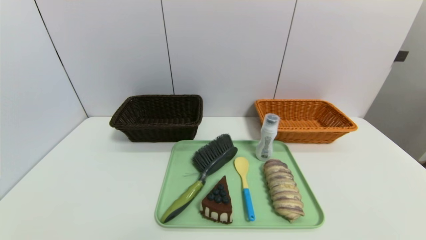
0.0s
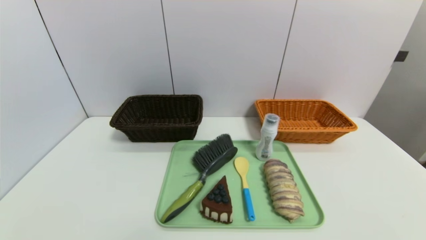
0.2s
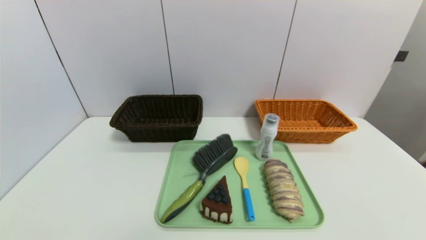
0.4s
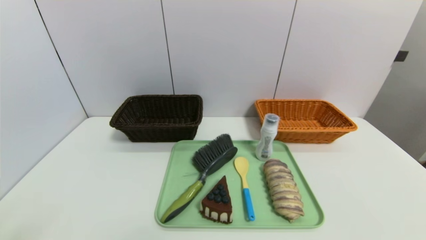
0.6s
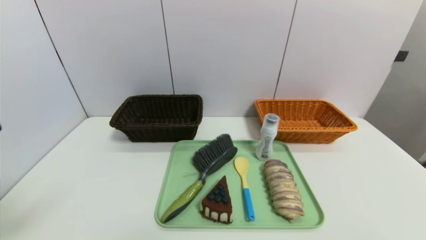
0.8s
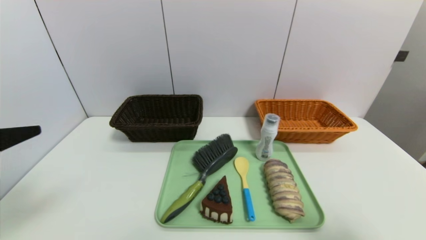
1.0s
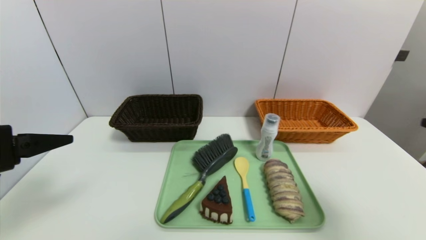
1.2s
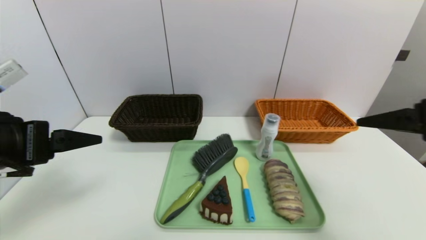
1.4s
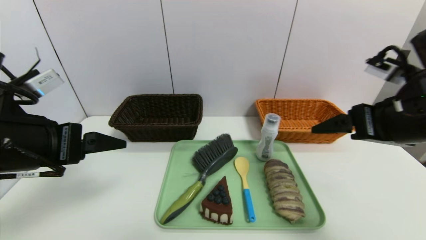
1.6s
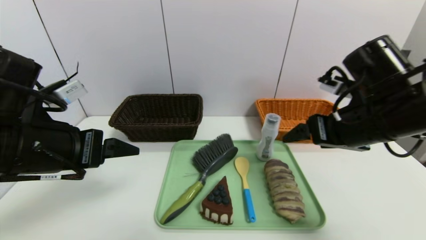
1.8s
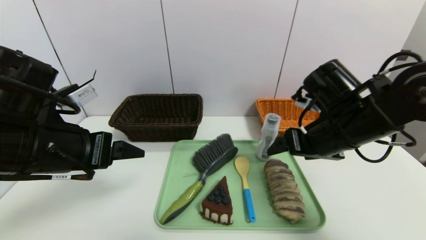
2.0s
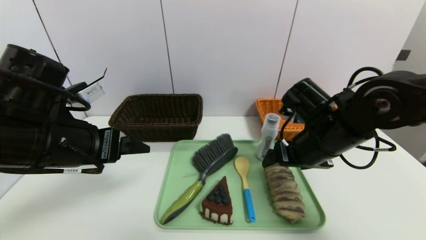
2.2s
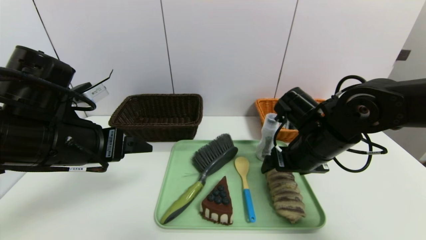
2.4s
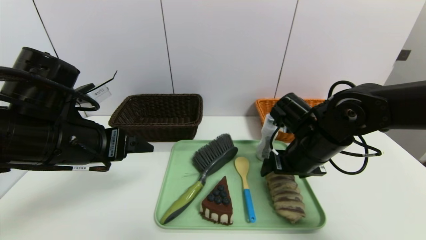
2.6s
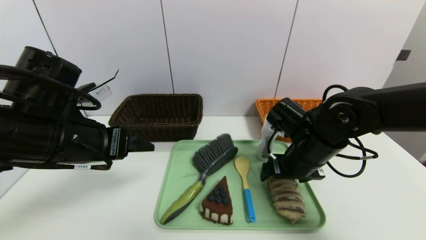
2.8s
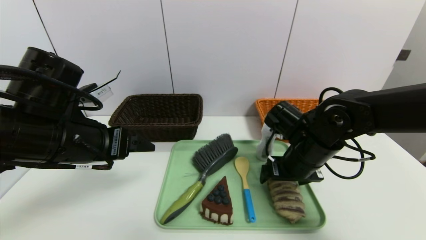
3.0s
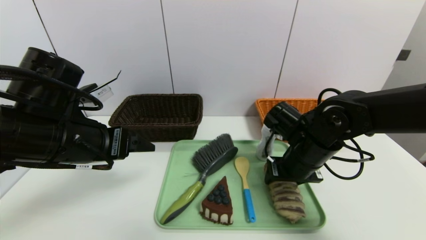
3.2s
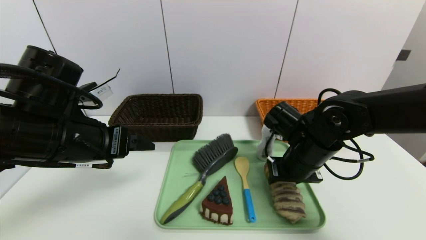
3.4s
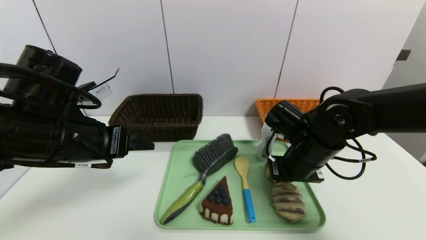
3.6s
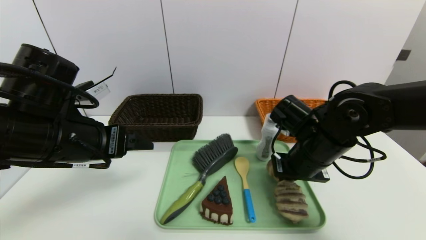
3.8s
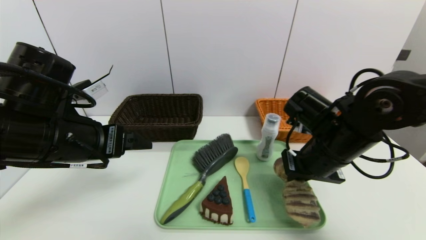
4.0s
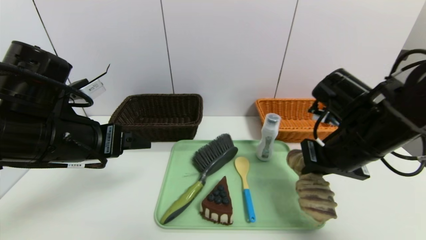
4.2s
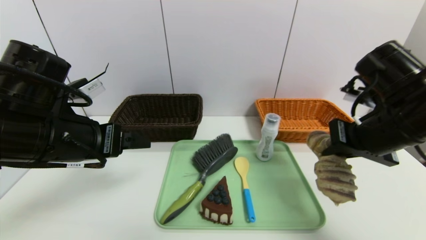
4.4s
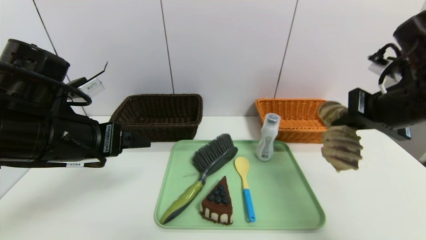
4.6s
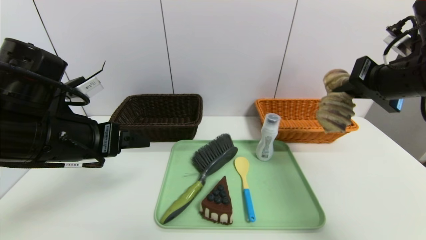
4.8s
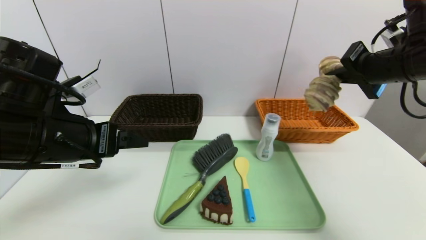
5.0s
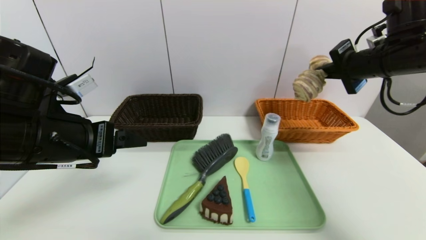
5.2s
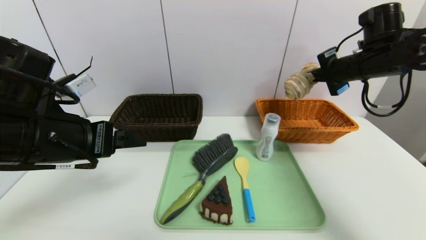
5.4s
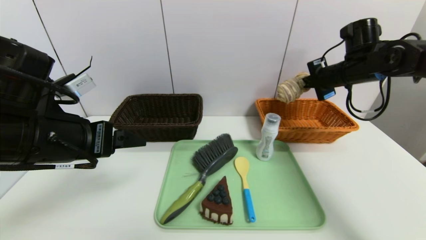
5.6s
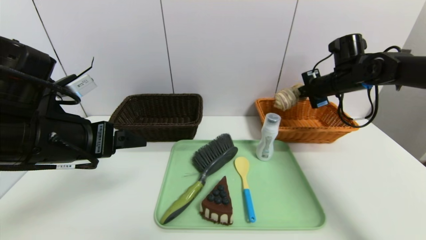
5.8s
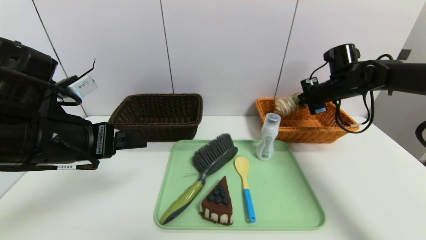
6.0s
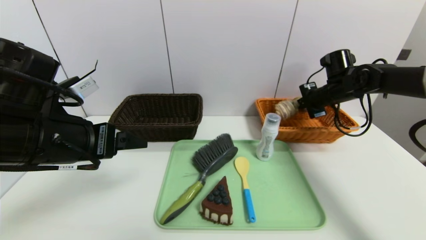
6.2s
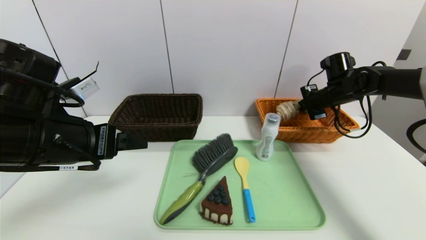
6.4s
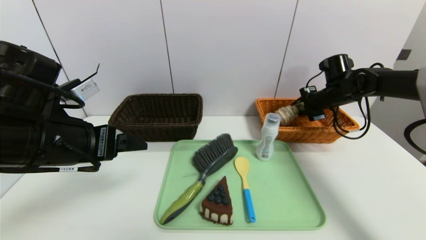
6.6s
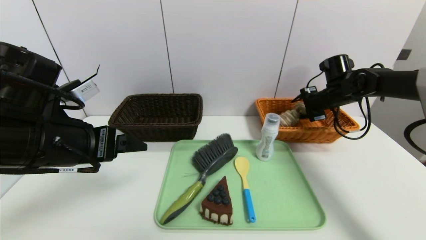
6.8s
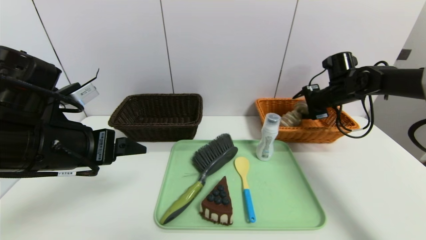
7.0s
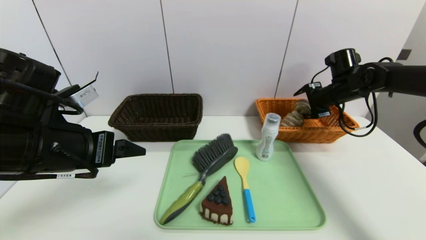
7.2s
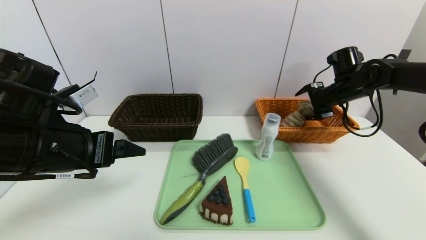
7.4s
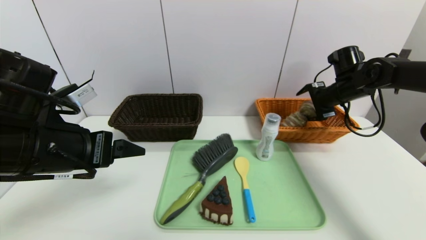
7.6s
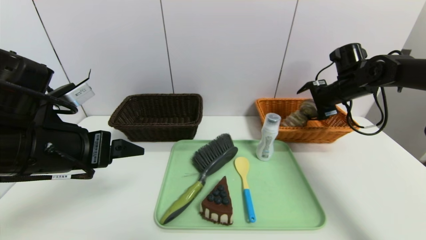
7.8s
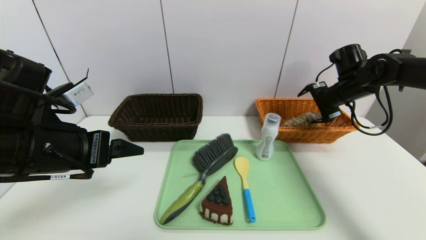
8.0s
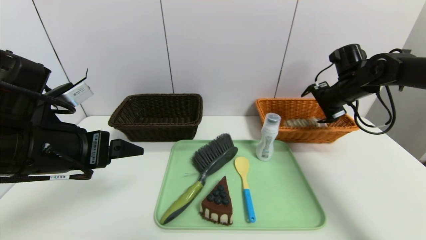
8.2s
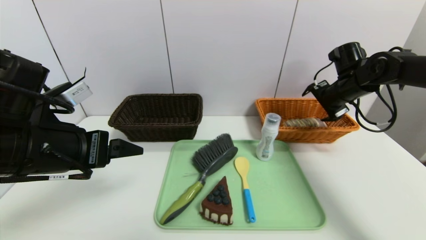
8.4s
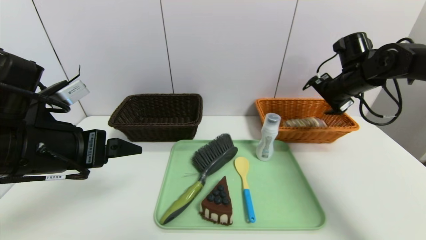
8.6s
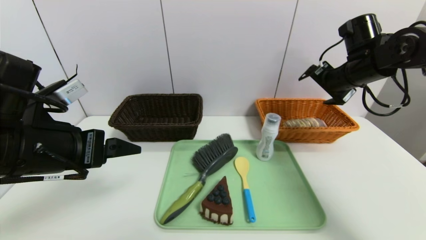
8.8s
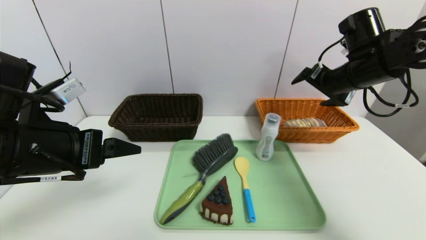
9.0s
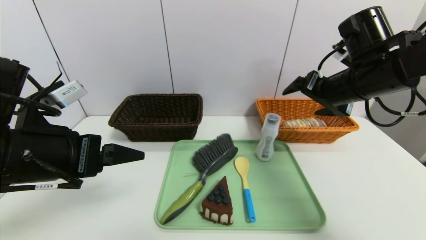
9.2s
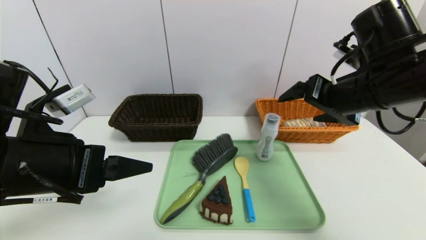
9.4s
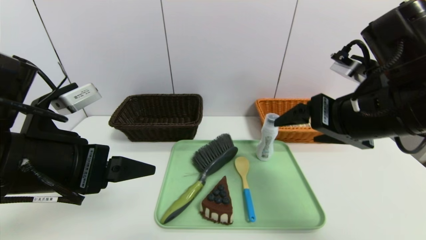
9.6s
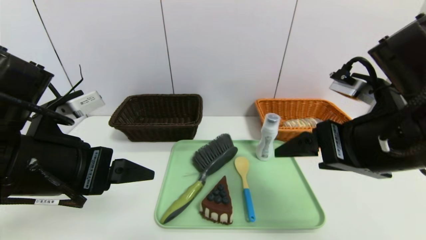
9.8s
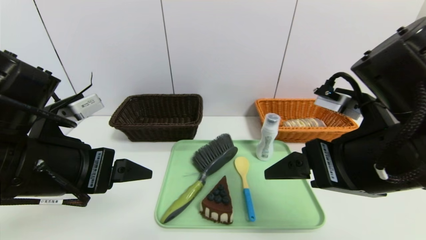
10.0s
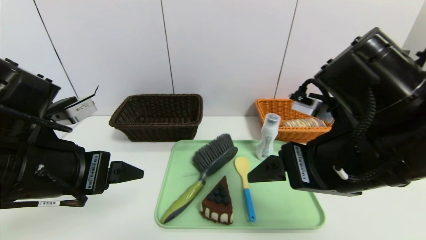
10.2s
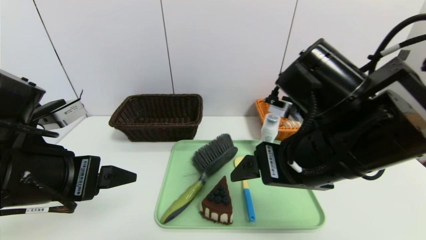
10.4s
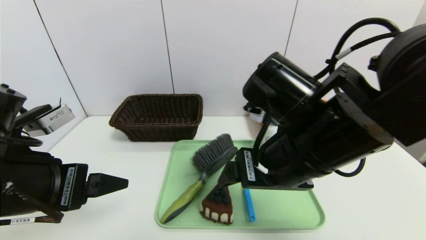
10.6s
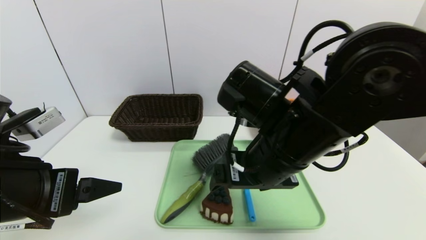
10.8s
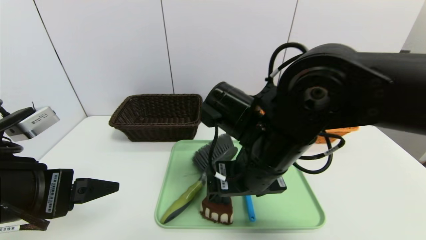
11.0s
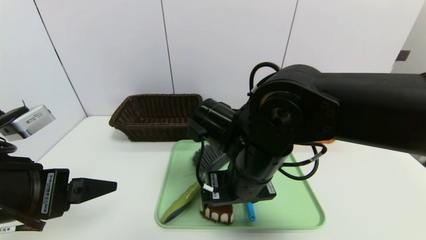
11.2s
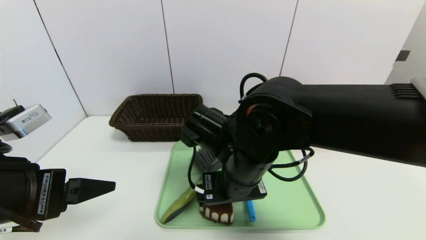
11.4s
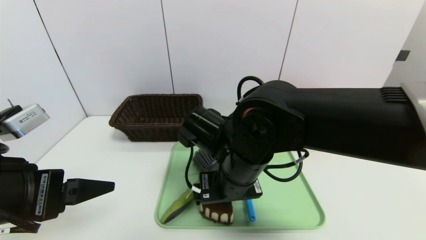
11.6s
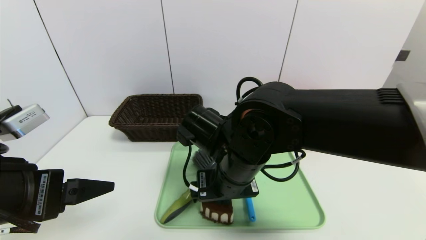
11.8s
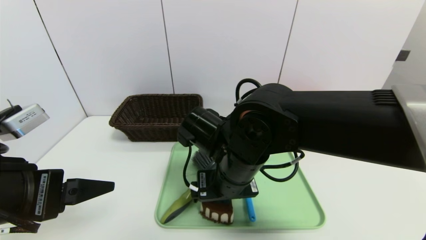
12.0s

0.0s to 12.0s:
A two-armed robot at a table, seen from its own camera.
Task of the whole recording: place the food in the right basket with the right gripper, and place the non food items in the left basket with the left gripper.
Step, 0.0s to 8.4s: Grasp the long bread and put it in the right basket.
0.0s to 1.6s: The grippers both shift forward and upward by approximately 30 cm.
1.6s to 3.0s: The left gripper changes place by about 5 cm, while the right gripper shifts about 15 cm downward, to the left and forward.
3.0s to 4.4s: The right gripper heads upward, to the right and backward, covering approximately 15 cm, and closes.
4.4s to 6.0s: The right gripper goes roughly 20 cm forward.
6.0s to 7.6s: The right gripper opens.
7.6s to 9.0s: The right gripper heads backward, upward and to the left, covering about 15 cm.
9.0s to 10.4s: The right gripper shifts about 20 cm backward and to the left.
10.4s to 12.0s: The right gripper heads to the left, downward and forward, covering some 15 cm.

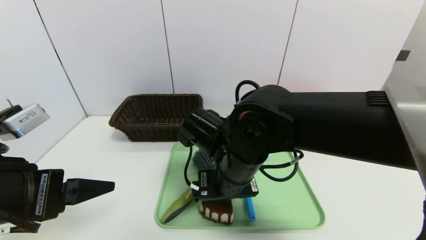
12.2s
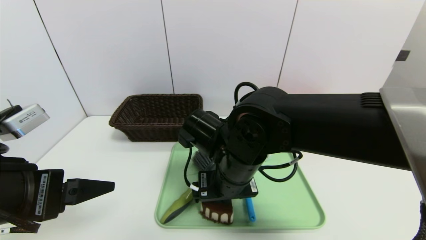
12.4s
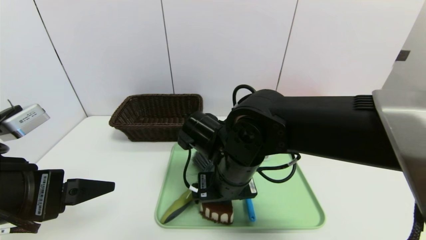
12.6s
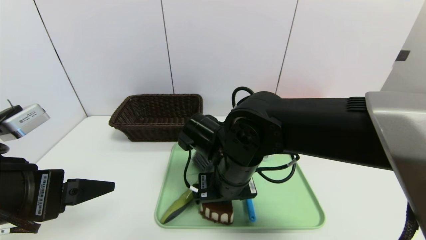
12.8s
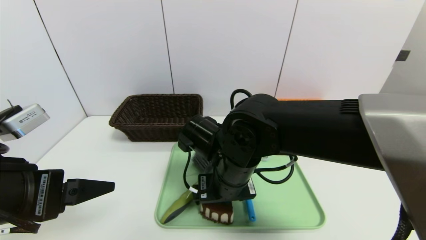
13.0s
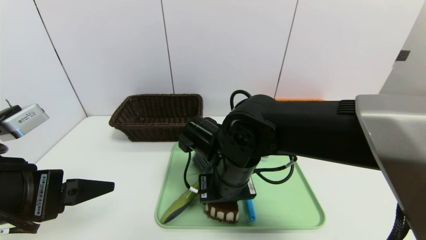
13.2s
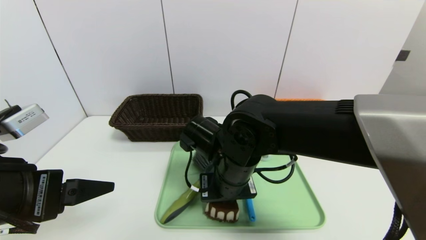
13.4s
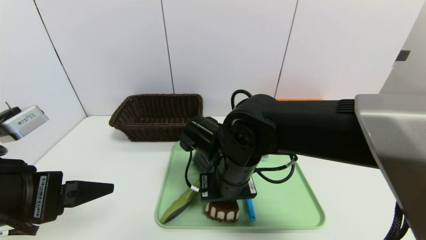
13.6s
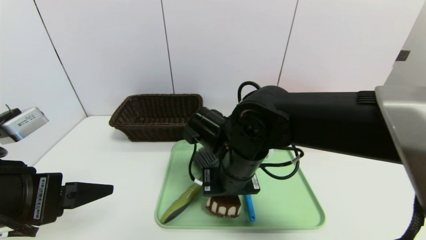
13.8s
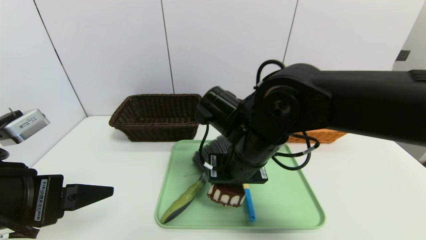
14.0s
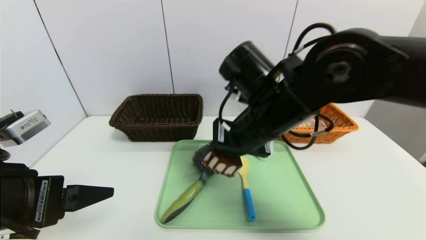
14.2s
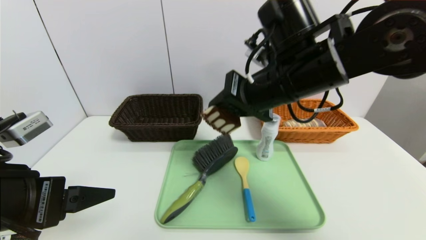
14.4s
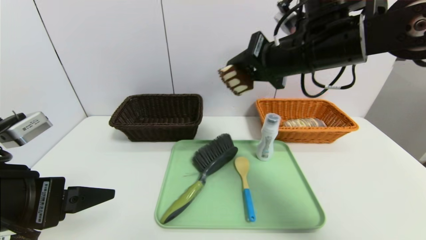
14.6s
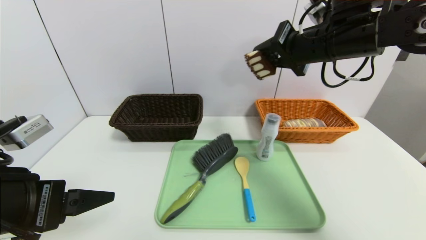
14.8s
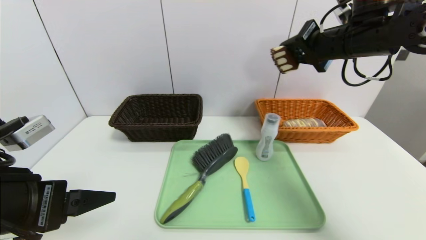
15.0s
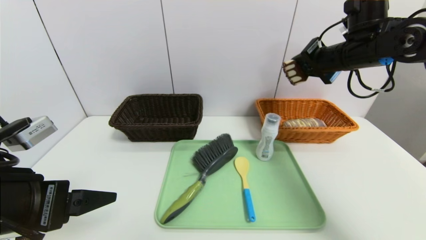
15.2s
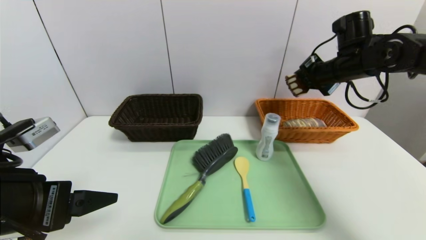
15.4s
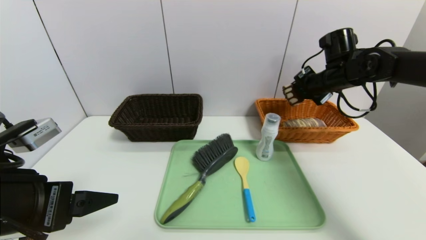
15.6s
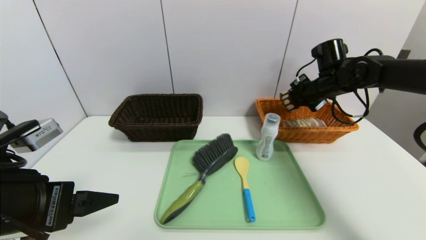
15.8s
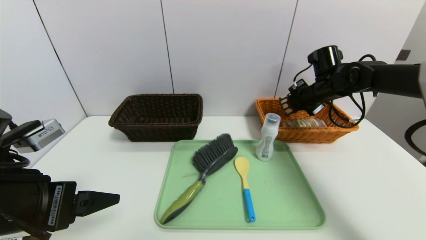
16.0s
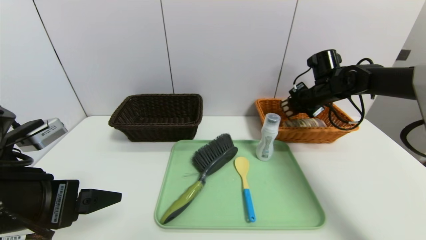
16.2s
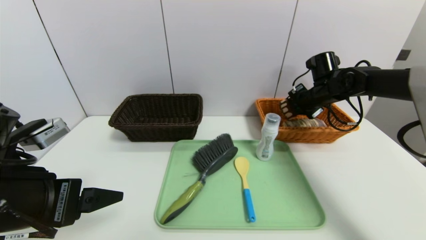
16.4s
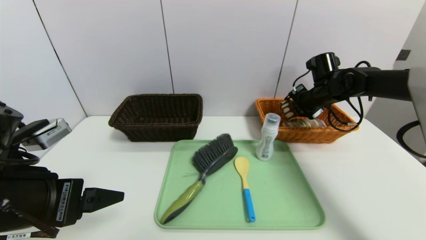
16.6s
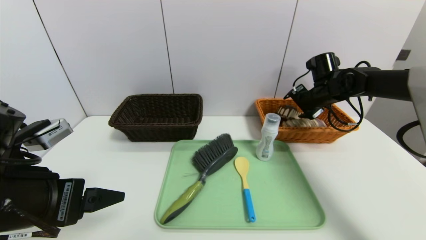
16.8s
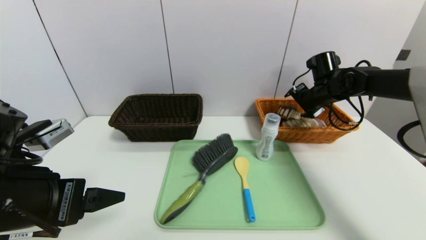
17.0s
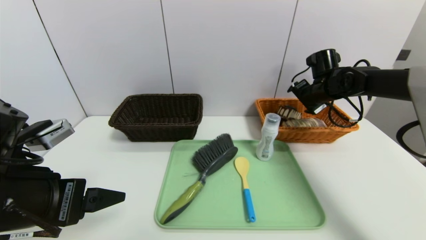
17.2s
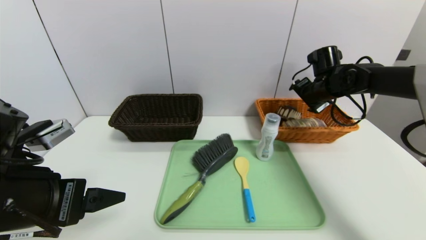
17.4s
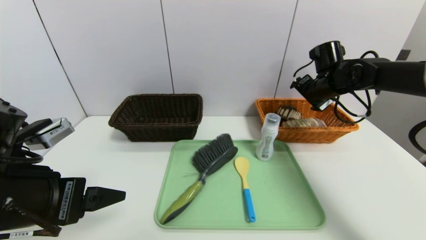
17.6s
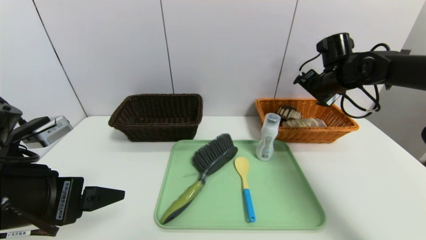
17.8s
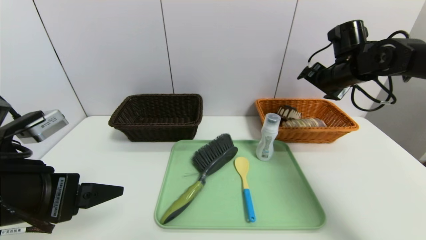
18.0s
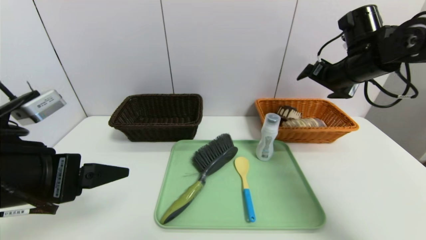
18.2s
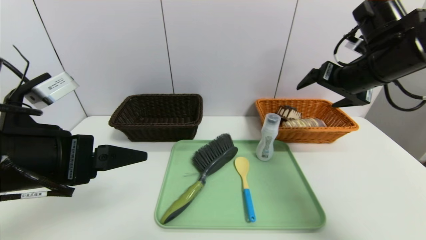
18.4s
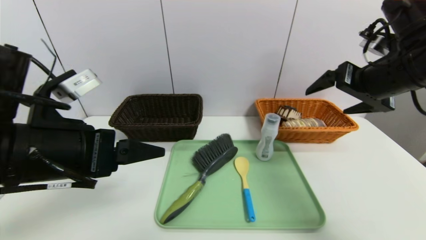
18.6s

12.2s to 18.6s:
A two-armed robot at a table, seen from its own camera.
Task of the whole recording: place the food in the right basket with the right gripper, and place the non food items in the left basket with the left gripper.
Step, 12.2s to 17.2s: Grasp the triangle cake and put it in the right basket.
12.2s to 13.8s: The right gripper closes up.
13.8s to 15.4s: The right gripper shifts roughly 30 cm to the right, forward and upward.
15.4s to 17.0s: The right gripper heads downward, covering about 10 cm, and opens.
17.0s to 18.6s: The left gripper ends up approximately 5 cm from where it was. The right gripper is displaced backward and upward by roughly 25 cm.
